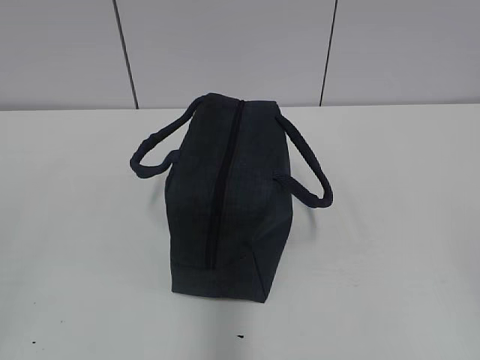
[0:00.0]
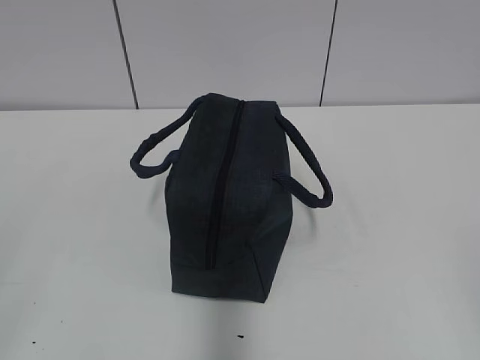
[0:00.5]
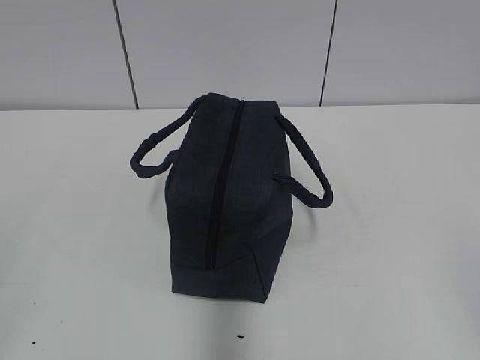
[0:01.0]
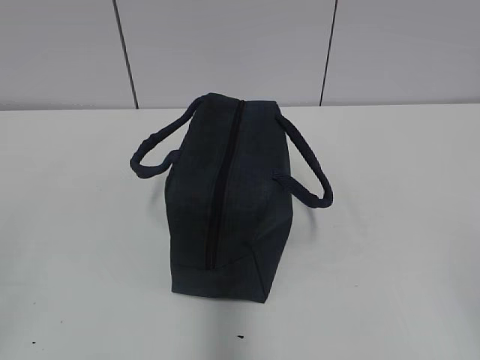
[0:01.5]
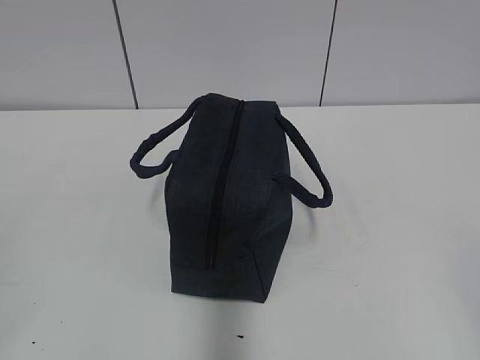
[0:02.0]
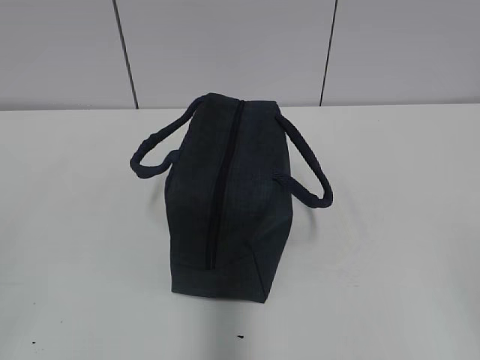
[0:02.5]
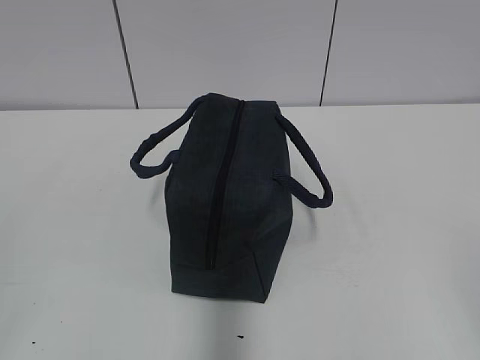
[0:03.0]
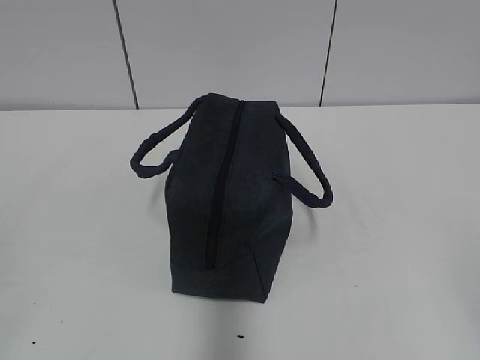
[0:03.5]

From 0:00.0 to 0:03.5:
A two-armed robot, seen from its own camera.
From 0:02.0 to 0:03.5: Both grippers stay put.

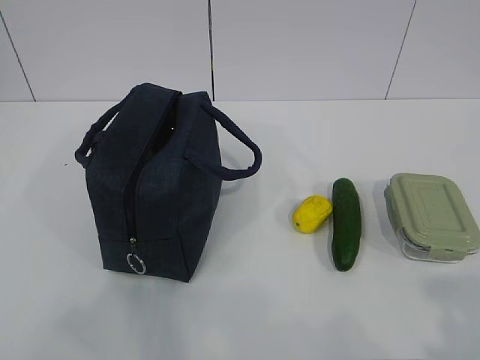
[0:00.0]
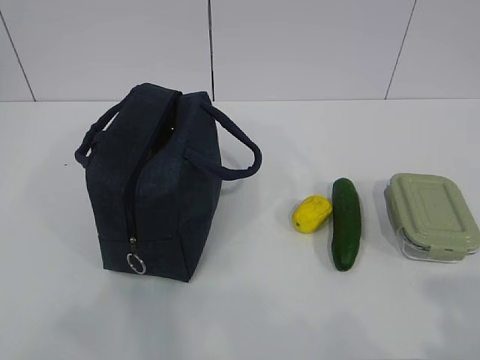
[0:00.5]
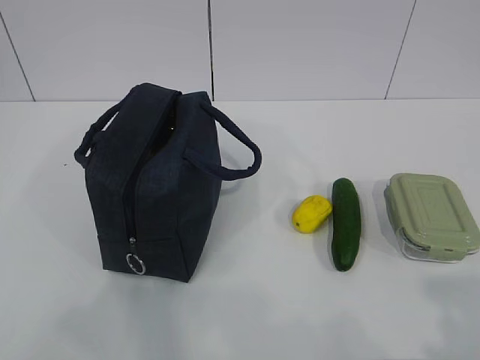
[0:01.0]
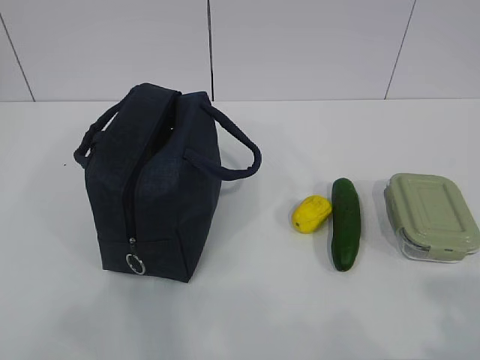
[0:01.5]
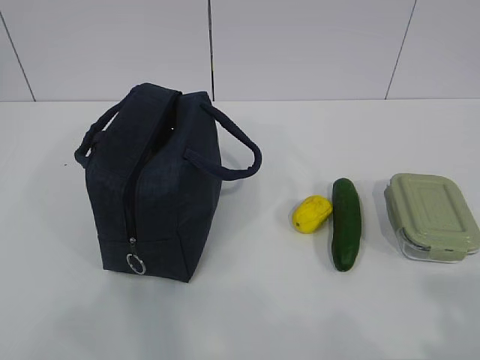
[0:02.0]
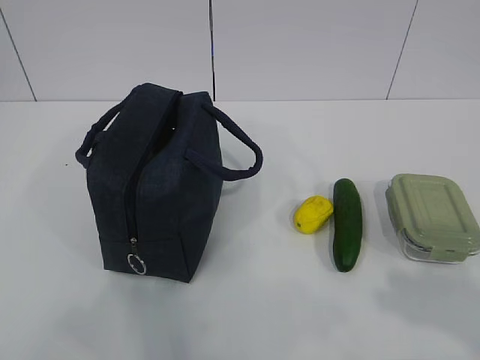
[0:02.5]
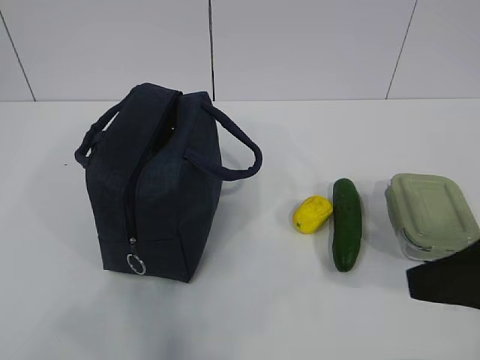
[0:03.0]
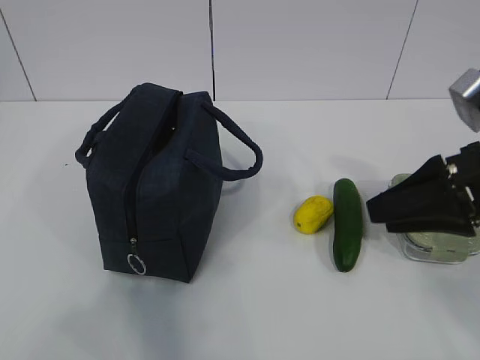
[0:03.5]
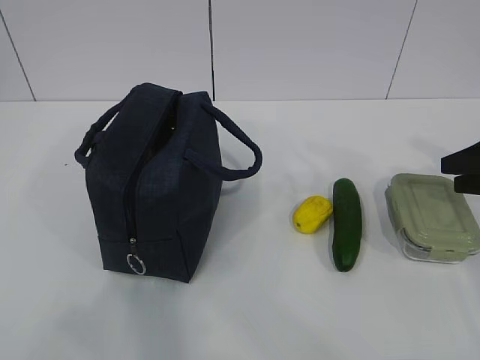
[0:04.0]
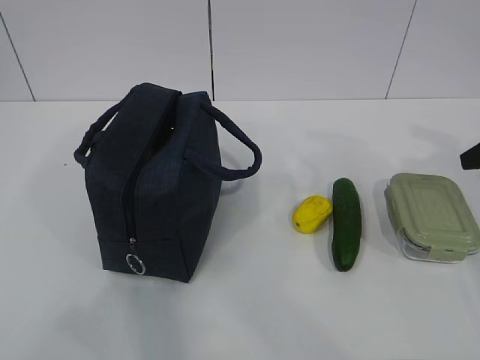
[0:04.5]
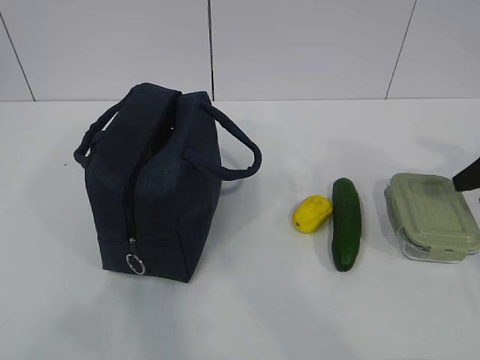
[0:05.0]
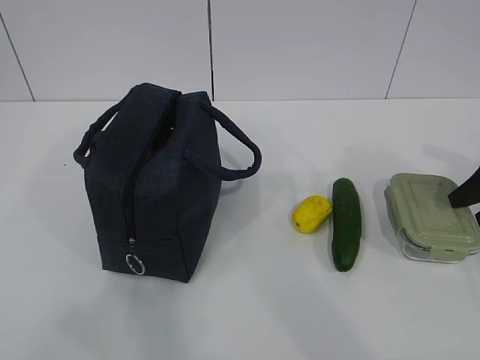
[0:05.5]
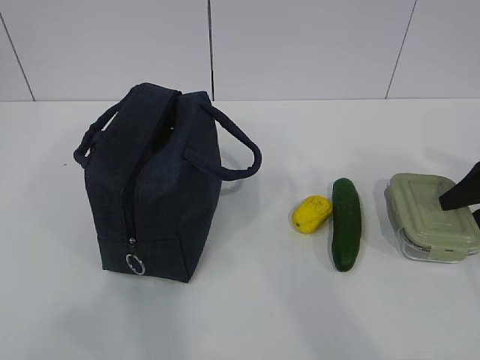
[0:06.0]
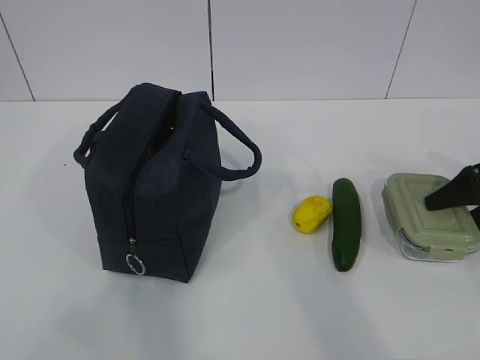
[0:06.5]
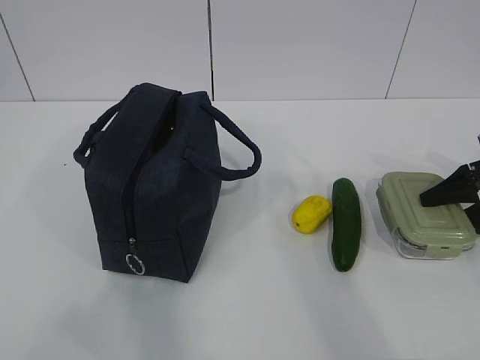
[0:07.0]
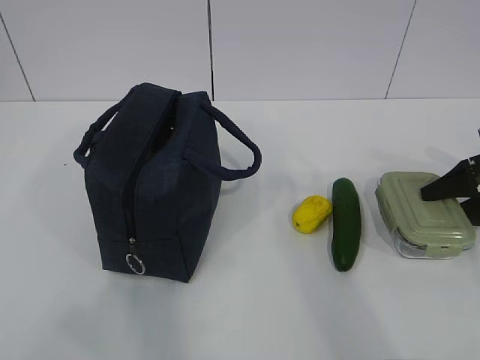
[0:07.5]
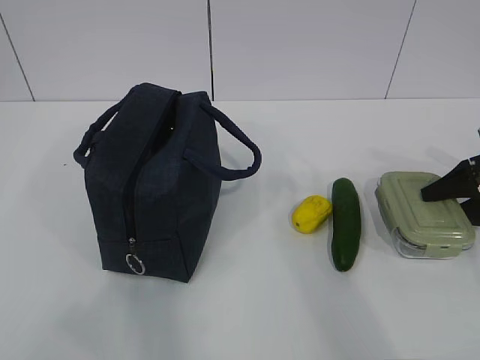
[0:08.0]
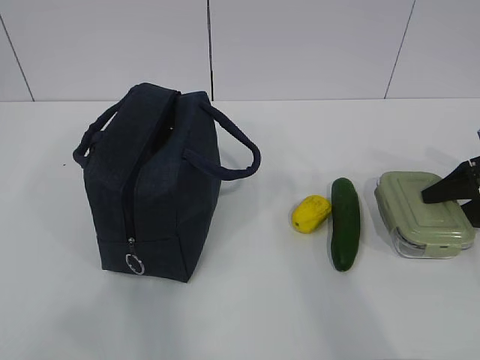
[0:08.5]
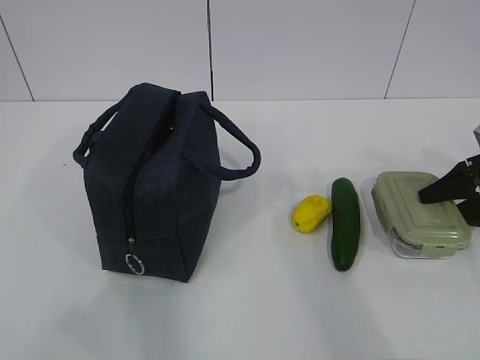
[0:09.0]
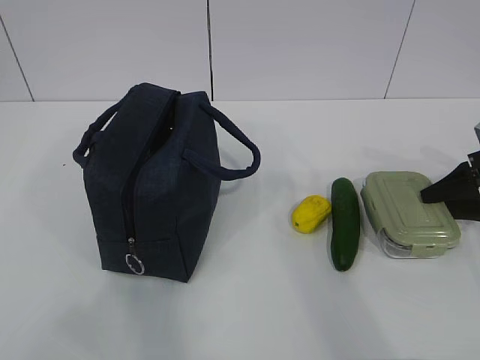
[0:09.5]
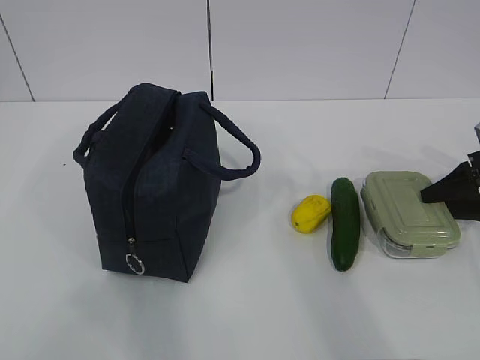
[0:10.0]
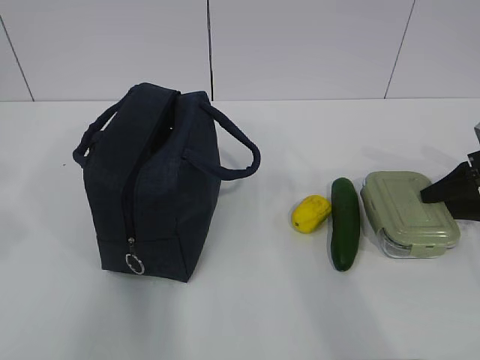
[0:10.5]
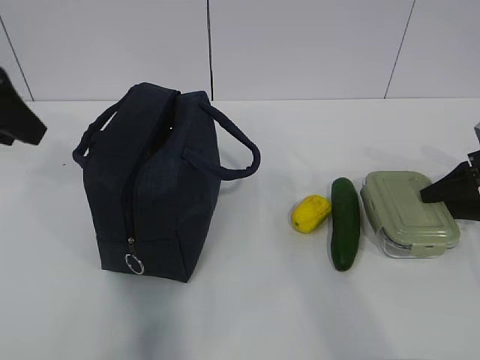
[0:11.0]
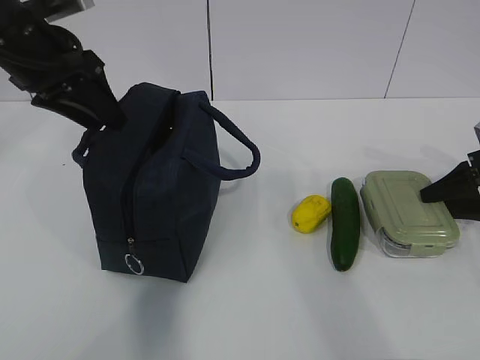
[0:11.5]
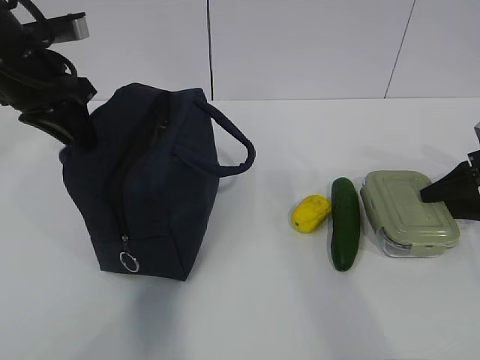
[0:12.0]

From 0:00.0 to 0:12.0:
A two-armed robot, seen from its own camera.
From 0:02.0 to 0:04.0: The right gripper shifts roughly 30 cm forward.
From 0:04.0 to 0:06.0: The right gripper moves downward, some 5 cm.
From 0:06.0 to 0:10.0: The grippers make only small movements.
From 0:10.0 to 0:12.0: The left gripper shifts some 35 cm forward.

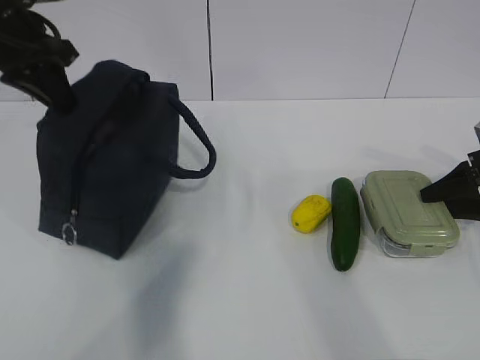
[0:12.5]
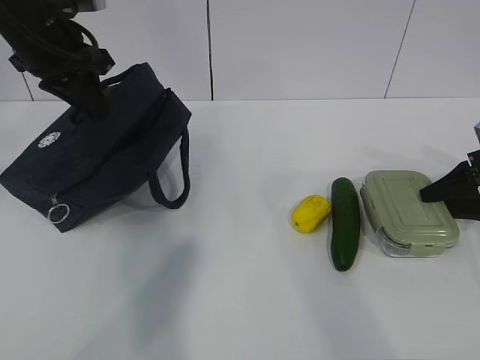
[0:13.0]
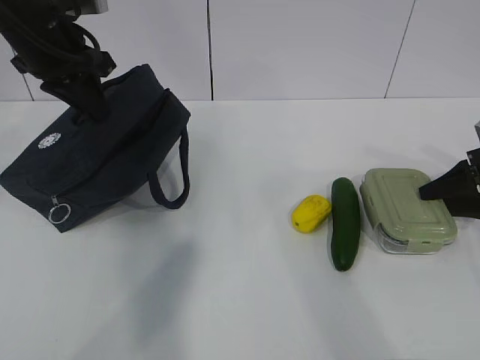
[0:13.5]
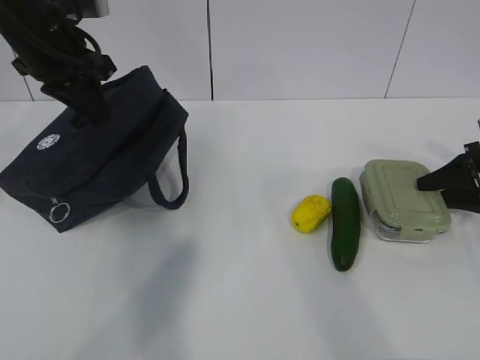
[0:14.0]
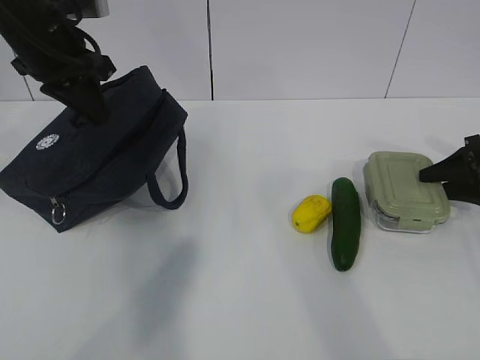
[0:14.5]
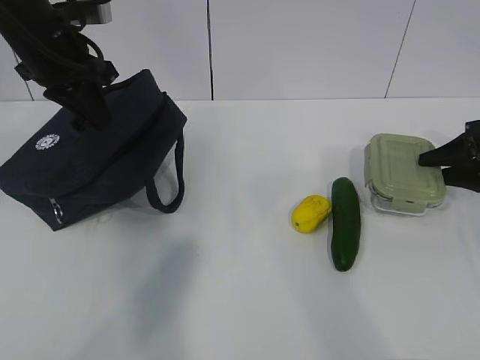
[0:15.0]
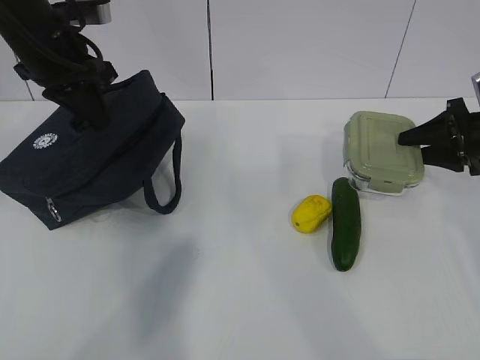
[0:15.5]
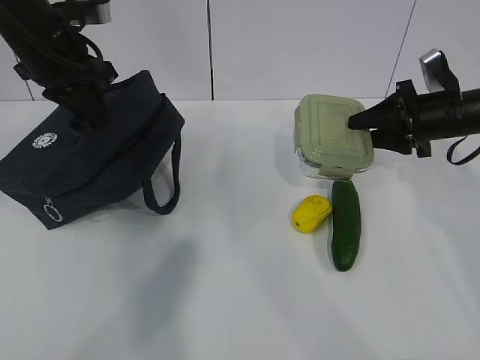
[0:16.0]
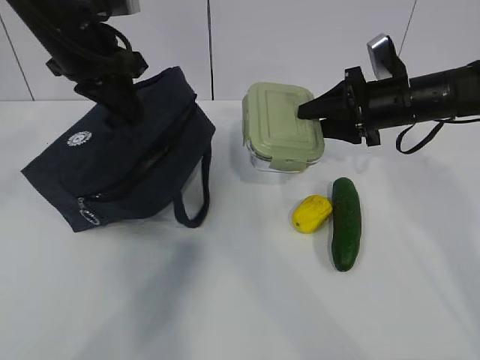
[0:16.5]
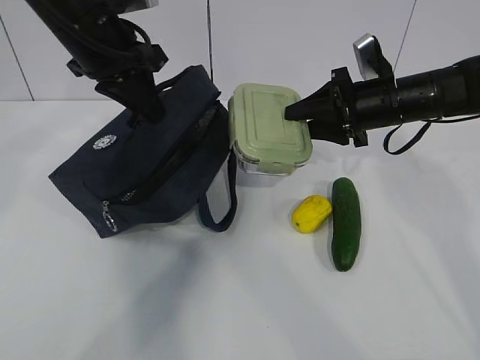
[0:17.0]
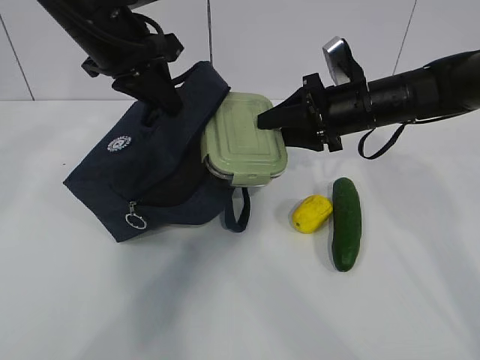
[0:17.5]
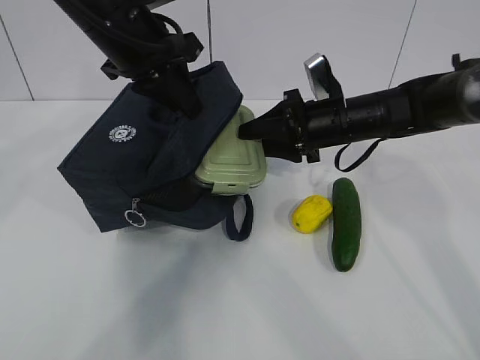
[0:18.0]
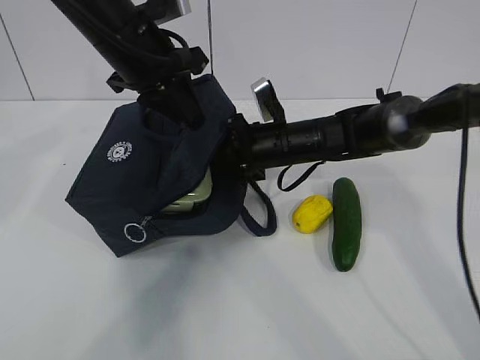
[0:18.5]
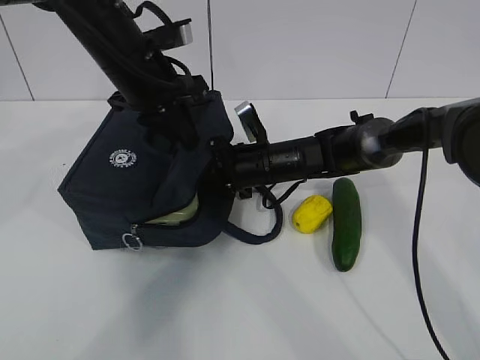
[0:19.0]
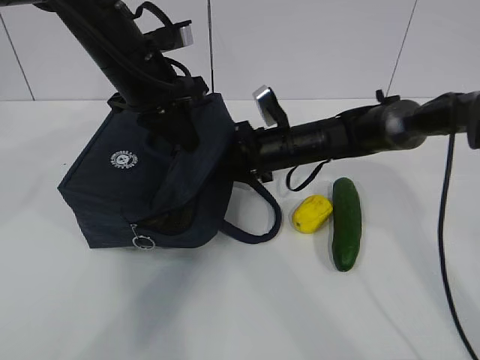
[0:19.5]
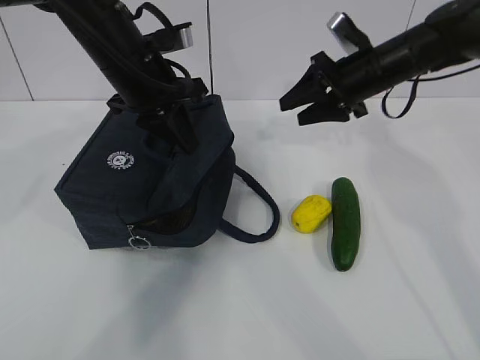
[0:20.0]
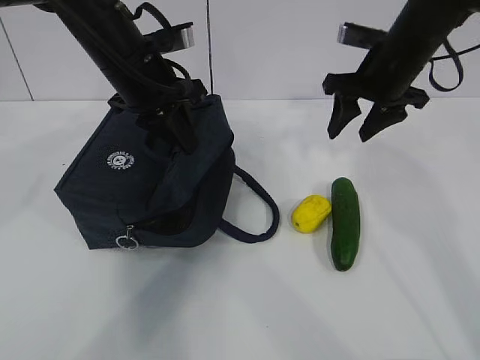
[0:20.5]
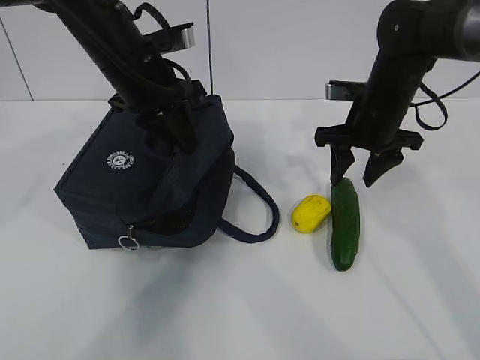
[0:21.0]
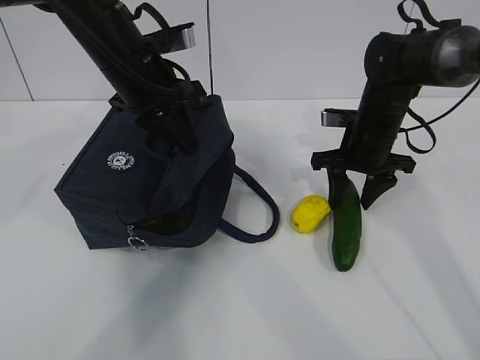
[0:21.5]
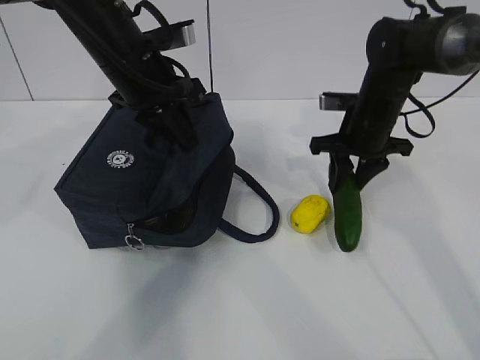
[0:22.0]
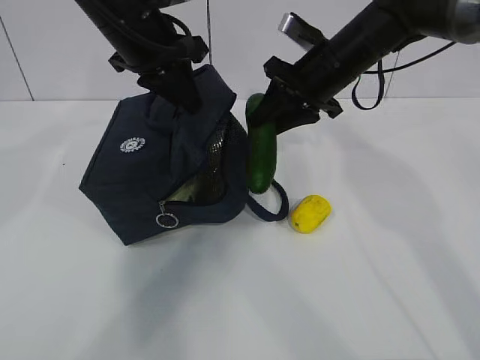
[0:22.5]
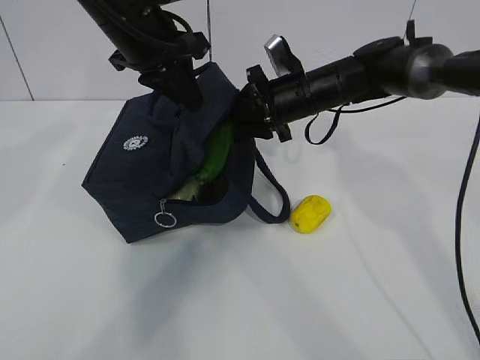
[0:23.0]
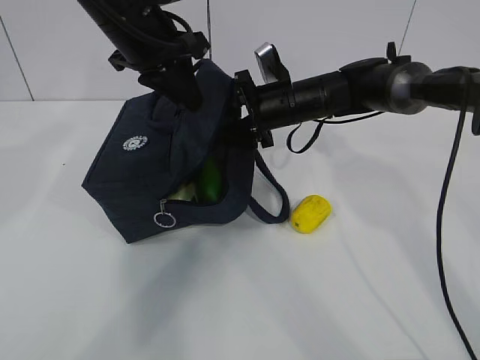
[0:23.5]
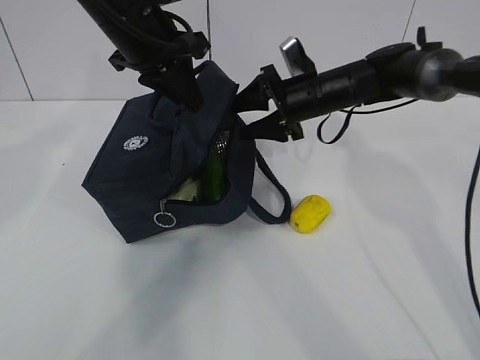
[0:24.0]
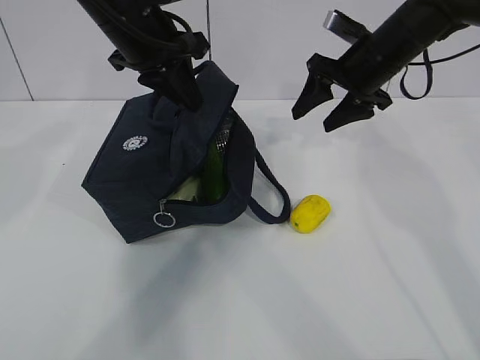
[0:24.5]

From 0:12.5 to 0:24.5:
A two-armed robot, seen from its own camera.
Step, from 0:12.5 to 0:14.0: Grab the lunch bag with your left hand.
Step, from 0:14.5 to 0:16.0: Place it into the bag with your right hand.
Step, from 0:16.5 to 0:18.0: Grab the cucumber with your right hand.
Step, from 0:18.5 to 0:19.5: Place it into the bag with your right hand.
Step, from 0:20.0 to 0:22.0: Grab the lemon with your right hand.
From 0:12.5 to 0:14.5: The grippers stay close to where they were, moving slightly.
From 0:14.5 to 0:16.5: The right gripper shifts approximately 20 cm to the left.
From 0:16.5 to 0:18.5: The left gripper moves to the right, approximately 5 cm. The right gripper is displaced to the left and downward by roughly 15 cm.
From 0:18.5 to 0:20.5: The right gripper moves to the right and upward, approximately 15 cm.
From 0:20.5 to 0:22.5: The right gripper is displaced to the left by roughly 5 cm, and moves roughly 10 cm downward and comes back.
From 0:22.5 to 0:24.5: The right gripper travels to the right by roughly 5 cm, and opens its fingers.
